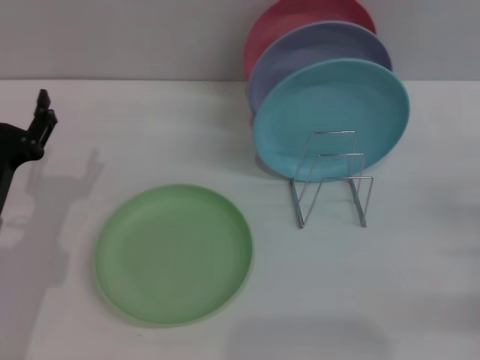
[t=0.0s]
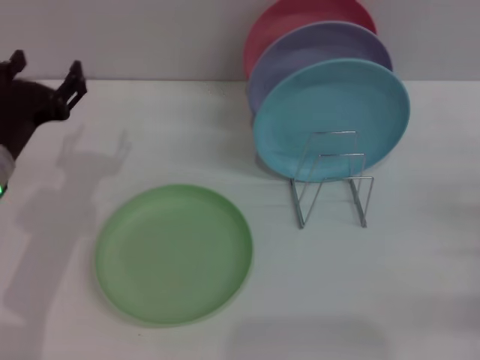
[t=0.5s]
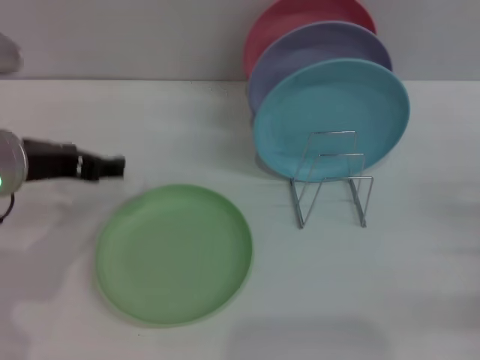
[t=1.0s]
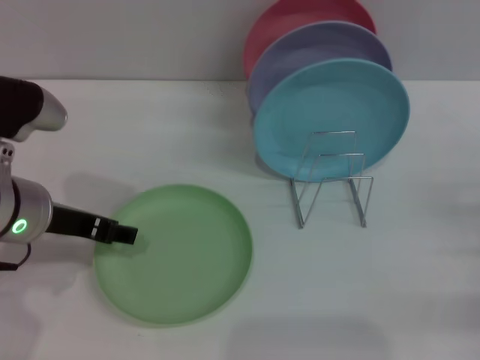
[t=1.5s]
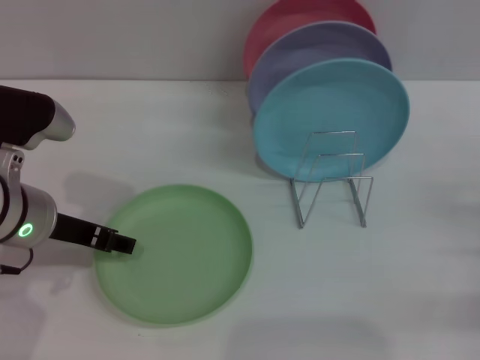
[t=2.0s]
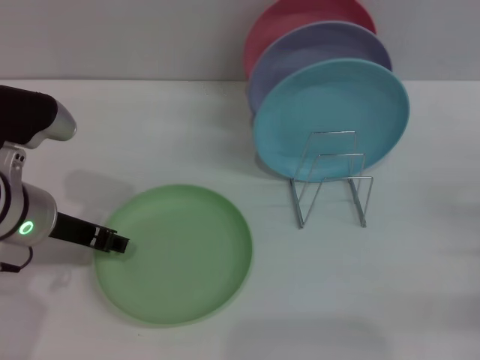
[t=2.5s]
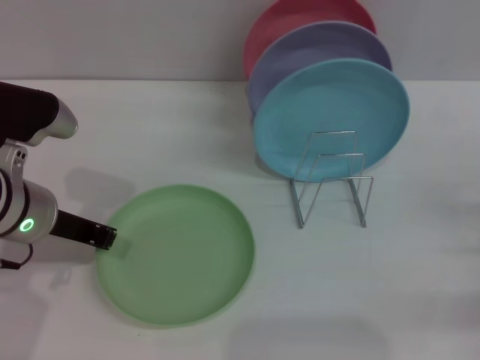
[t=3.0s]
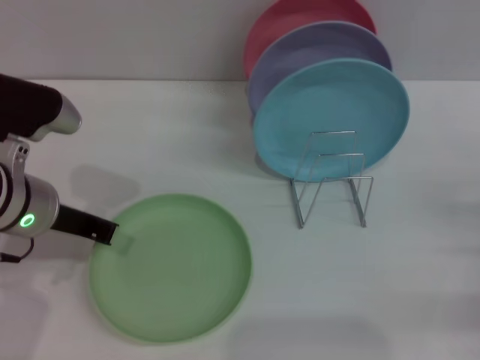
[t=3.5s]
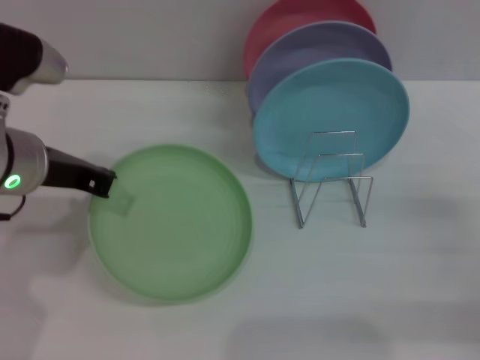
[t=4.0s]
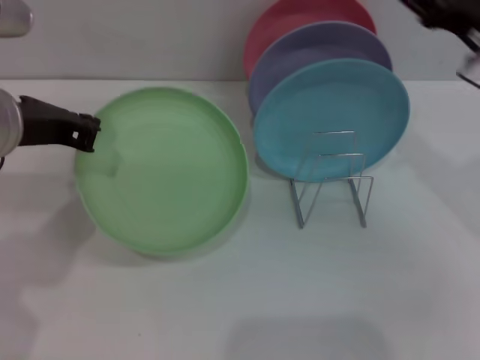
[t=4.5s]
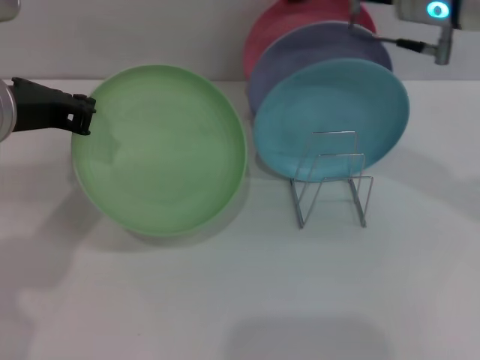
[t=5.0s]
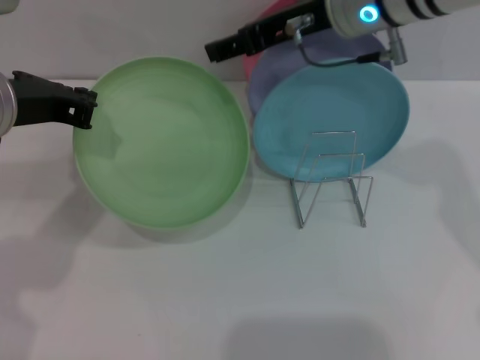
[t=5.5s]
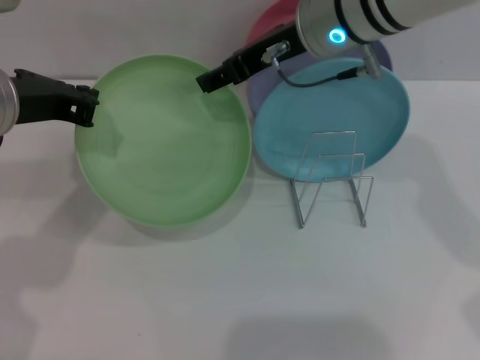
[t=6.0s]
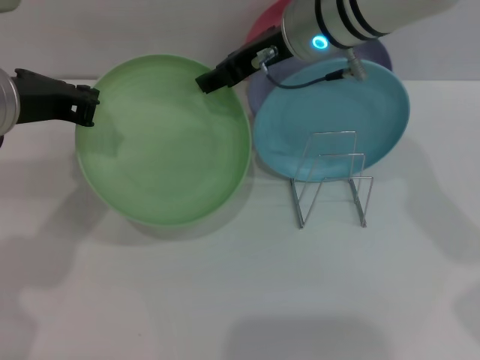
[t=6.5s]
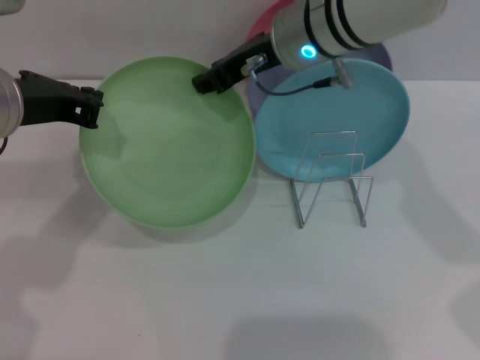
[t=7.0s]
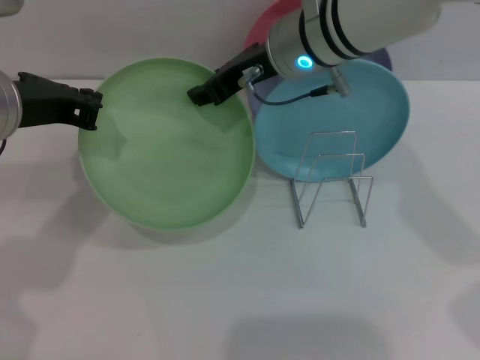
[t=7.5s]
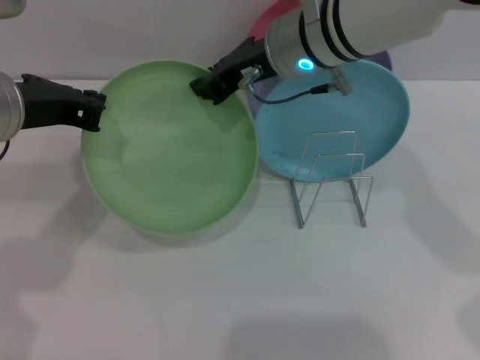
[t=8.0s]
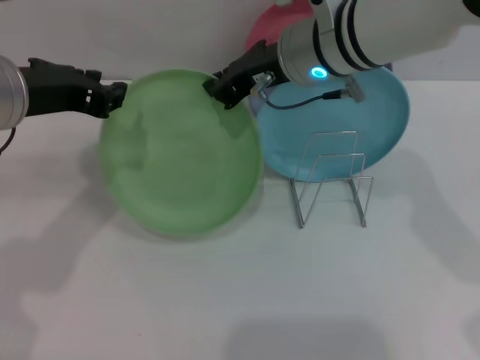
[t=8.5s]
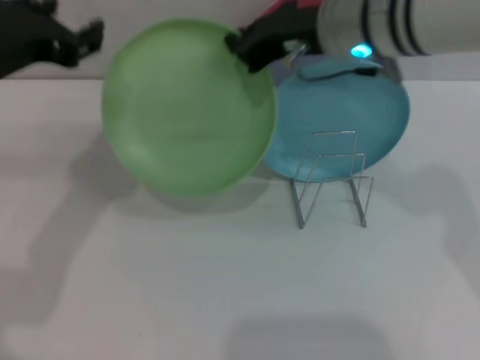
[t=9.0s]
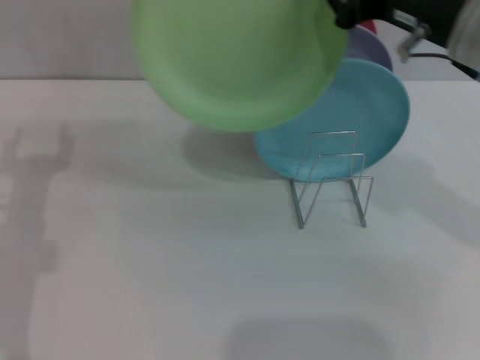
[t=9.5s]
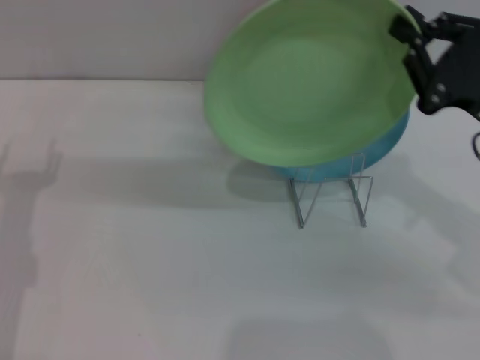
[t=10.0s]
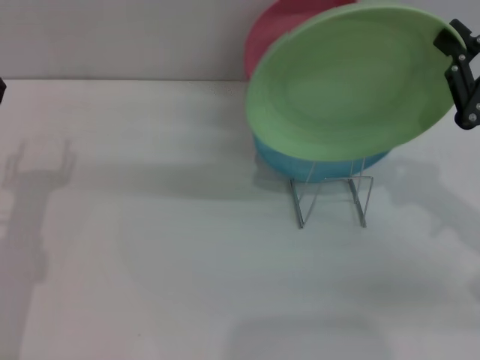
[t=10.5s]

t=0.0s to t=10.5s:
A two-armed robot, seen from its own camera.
Task of the whole recording: Grip the plate with one hand, pass it to the other, then set it on the shelf.
Step, t=0.0s to t=3.5s: Pick up the plate with the left gripper.
Step, t=4.5s to t=8.5s: Pass the plate from the left gripper to the right gripper.
t=0.0s to t=2.0s: The left gripper moves upward and to the right, about 10 cm.
t=2.0s to t=4.0s: The left gripper is displaced upward by some 5 cm, and closes its fingers.
t=4.0s to t=6.5s: The right gripper goes approximately 35 cm to the left, forward and upward.
t=6.5s to t=8.5s: The right gripper closes.
t=8.5s to t=10.5s: The left gripper is displaced downward and to the left by about 15 cm, and opens its fingers. The right gripper is displaced to the right and backward by approximately 25 cm.

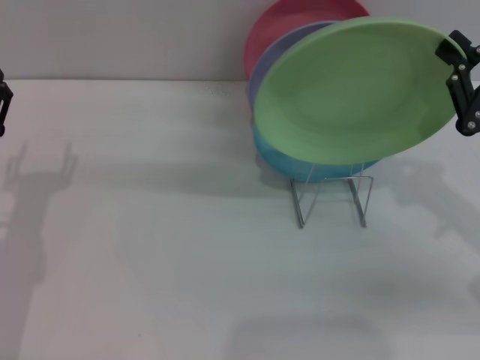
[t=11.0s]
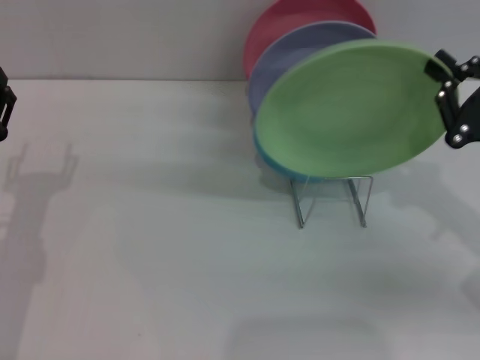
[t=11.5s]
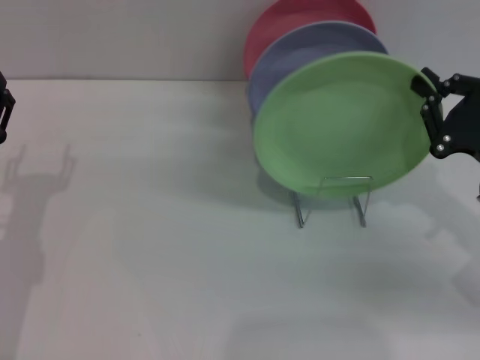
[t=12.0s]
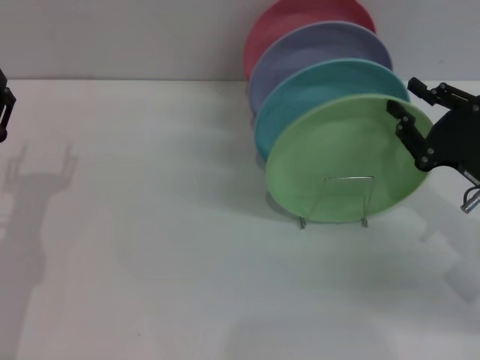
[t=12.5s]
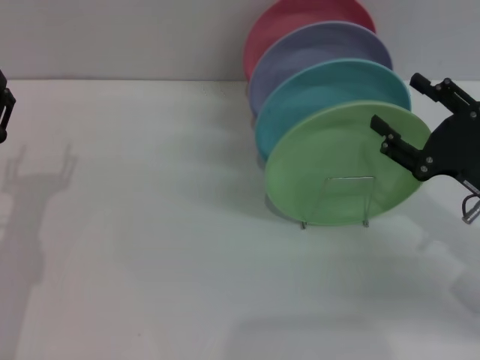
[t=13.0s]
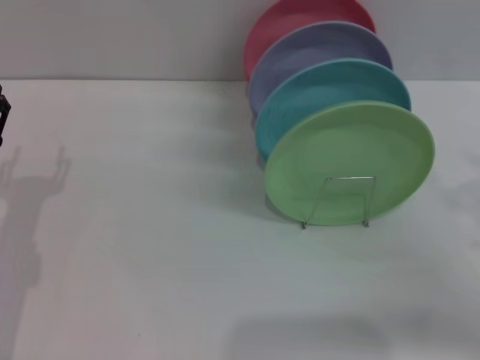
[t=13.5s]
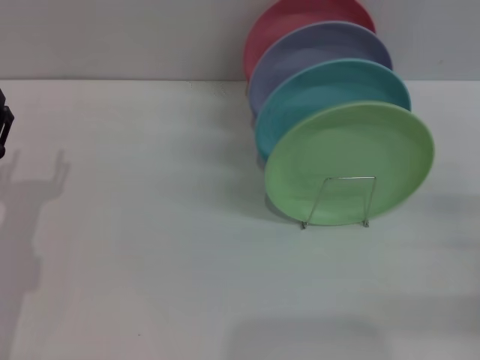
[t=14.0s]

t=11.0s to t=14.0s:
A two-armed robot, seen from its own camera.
Task of the whole recording: Grip the plate with one hand, pass it to the other, then set it on the shelf.
Step, t=11.0s to t=13.0s: Place the plate on the shelf with the right gripper.
t=11.0s to t=12.5s: The right gripper travels downward by approximately 5 cm.
t=12.5s to t=14.0s: The right gripper shifts approximately 10 cm to the right and backward, and opens up.

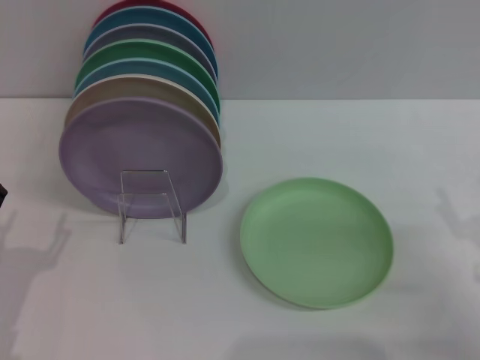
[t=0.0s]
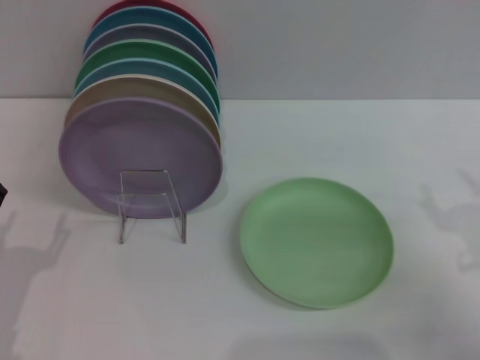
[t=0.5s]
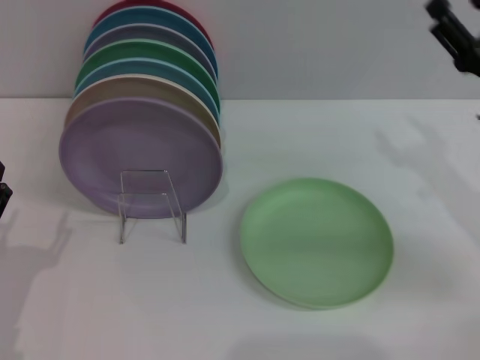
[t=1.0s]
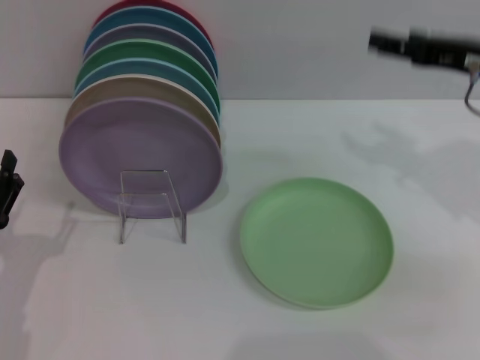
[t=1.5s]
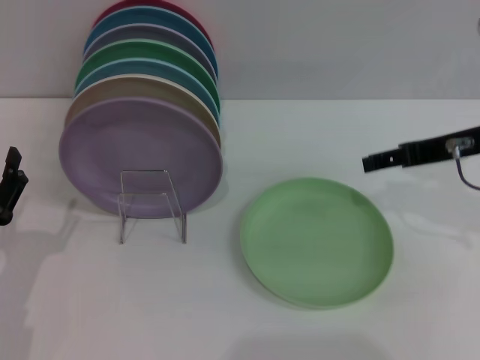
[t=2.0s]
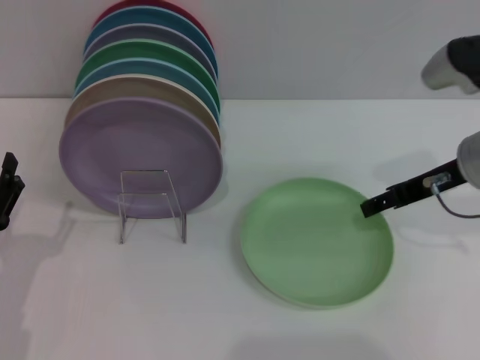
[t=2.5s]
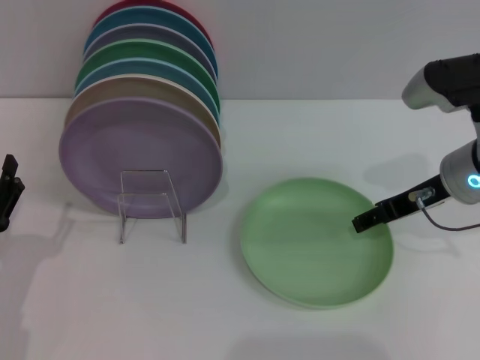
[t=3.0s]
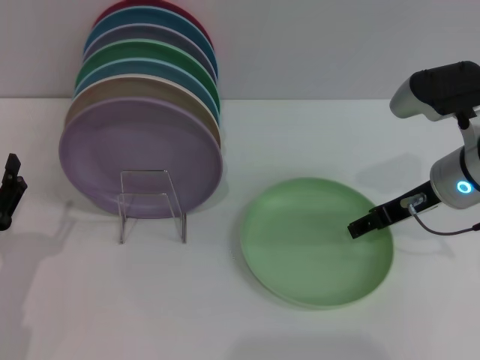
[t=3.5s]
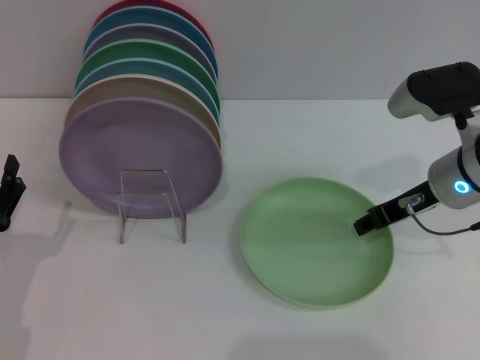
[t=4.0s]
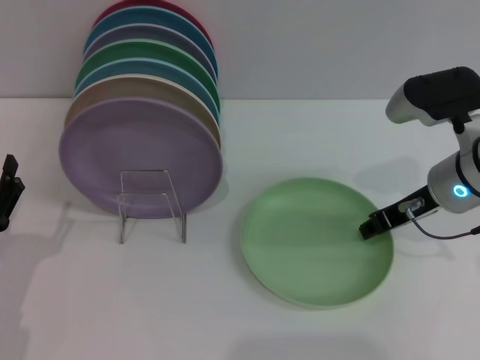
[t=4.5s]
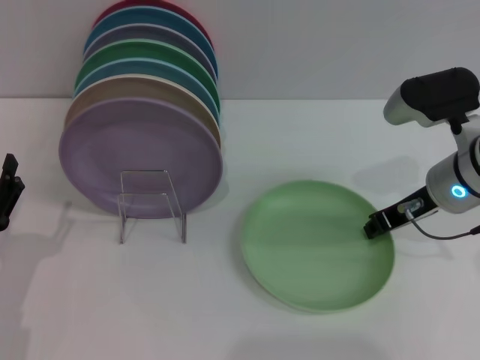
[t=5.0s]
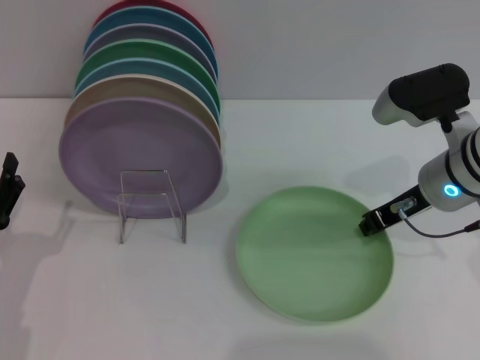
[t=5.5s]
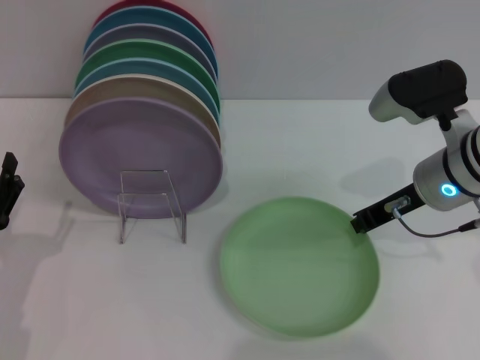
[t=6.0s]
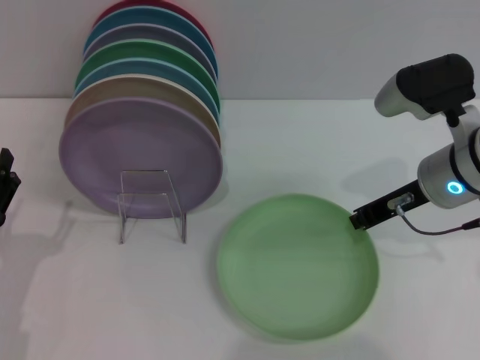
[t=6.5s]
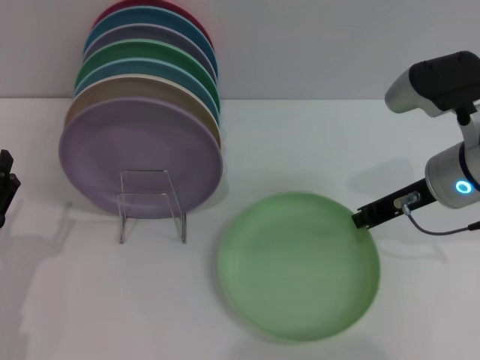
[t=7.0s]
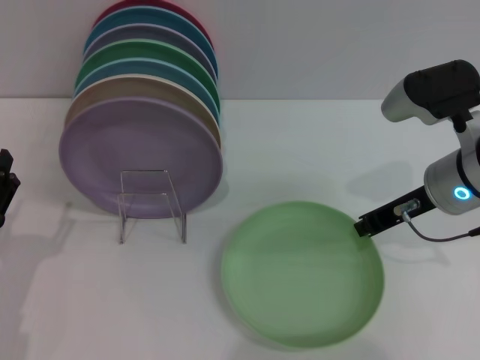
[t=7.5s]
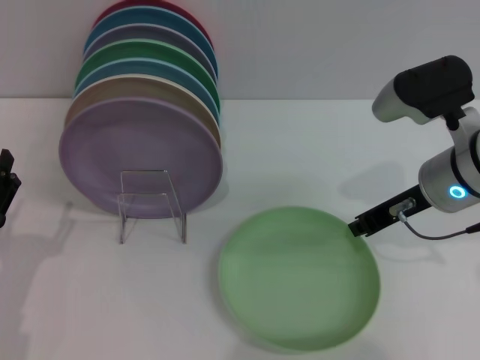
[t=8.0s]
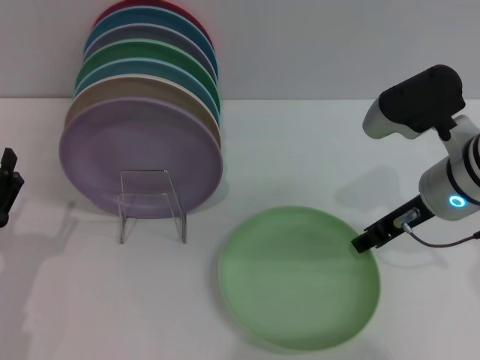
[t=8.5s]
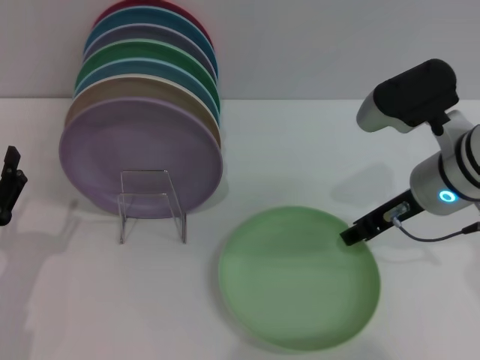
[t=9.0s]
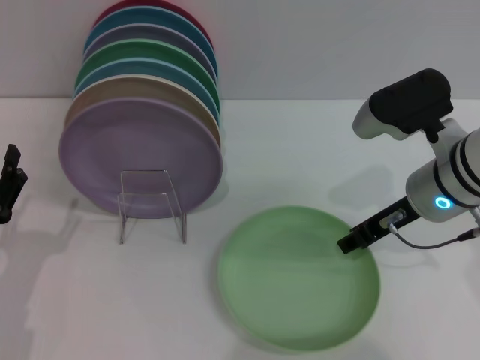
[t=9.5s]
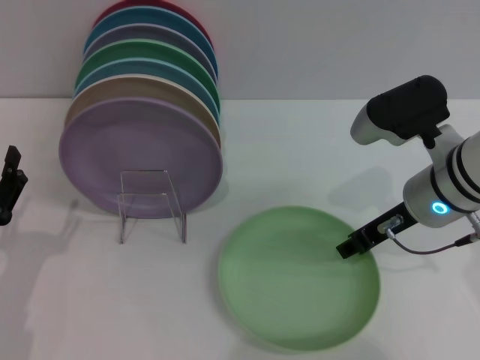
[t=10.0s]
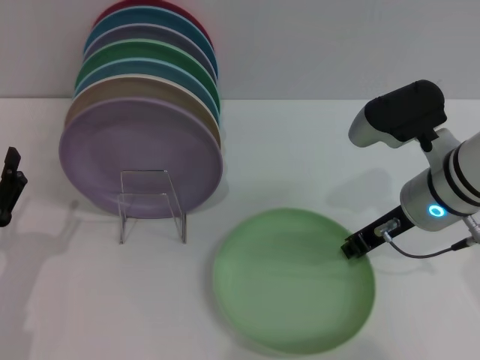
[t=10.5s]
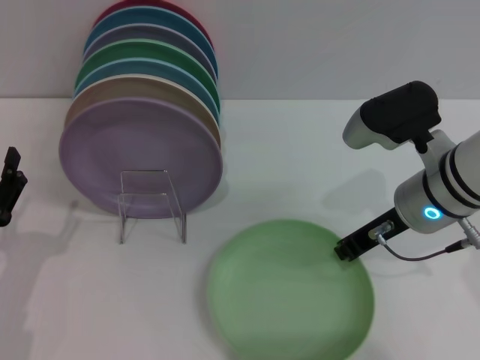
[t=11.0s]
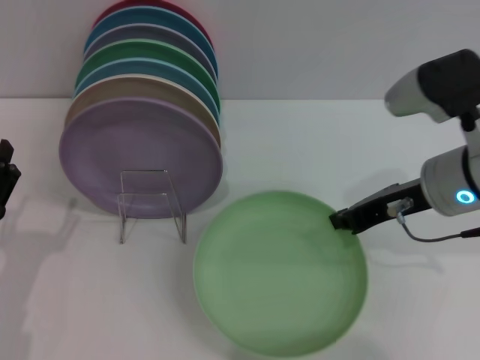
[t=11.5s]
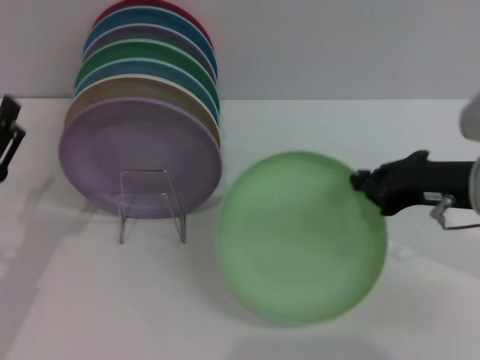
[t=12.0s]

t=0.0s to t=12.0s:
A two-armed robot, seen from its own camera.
Task of the whole recording: Grip the plate with one hand, pass it to the other, then set it on the shelf.
Step, t=0.0s to t=11.5s: Pick up the plate with the right gripper.
t=0.0s to t=2.0s: The right gripper goes about 20 cm upward, forward and to the left.
t=2.0s to t=4.0s: The right gripper shifts approximately 5 cm downward.
t=4.0s to t=6.0s: The right gripper closes up.
t=6.0s to t=8.0s: The grippers stay close to where they were, moving slightly.
t=8.0s to t=10.0s: The right gripper opens up.
t=10.0s to t=12.0s: The right gripper goes some 5 cm to the right, and closes its fingers.
